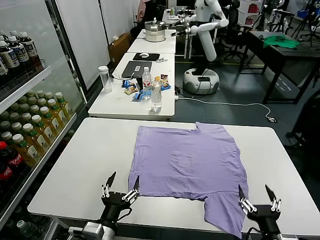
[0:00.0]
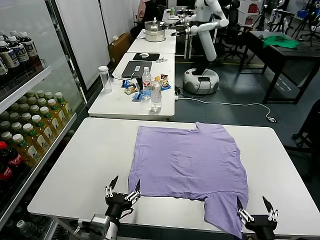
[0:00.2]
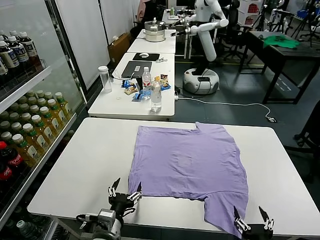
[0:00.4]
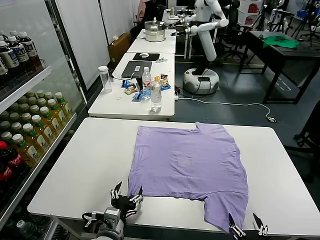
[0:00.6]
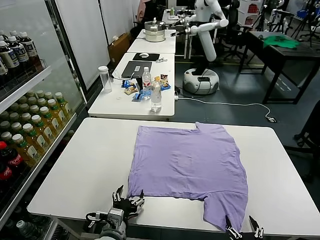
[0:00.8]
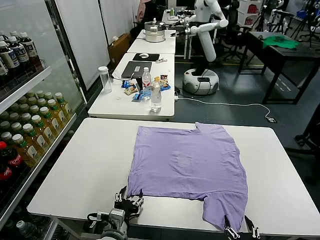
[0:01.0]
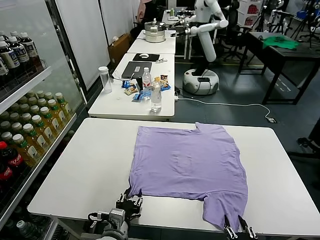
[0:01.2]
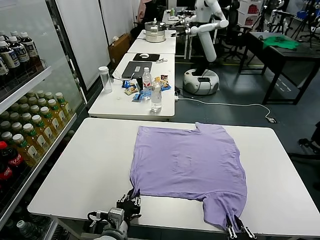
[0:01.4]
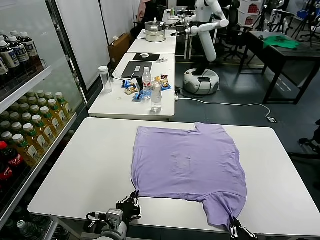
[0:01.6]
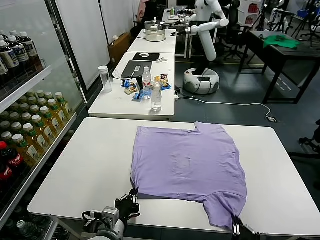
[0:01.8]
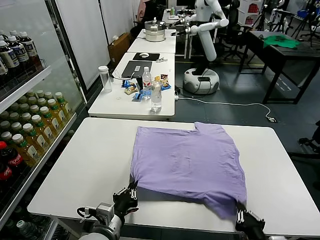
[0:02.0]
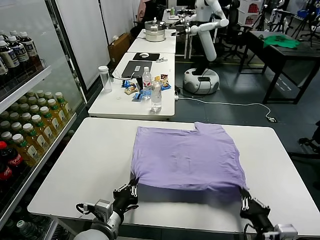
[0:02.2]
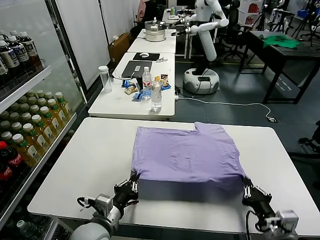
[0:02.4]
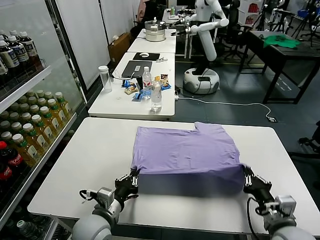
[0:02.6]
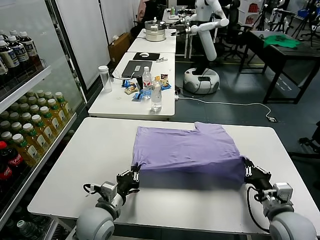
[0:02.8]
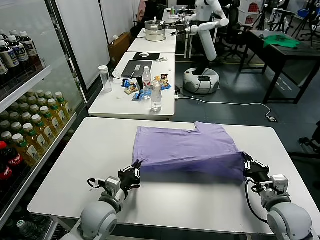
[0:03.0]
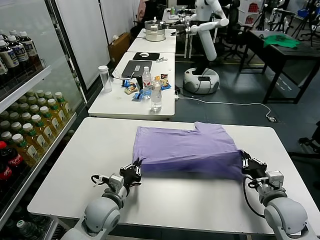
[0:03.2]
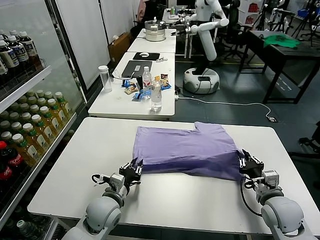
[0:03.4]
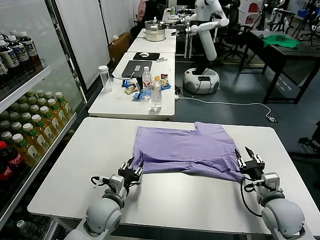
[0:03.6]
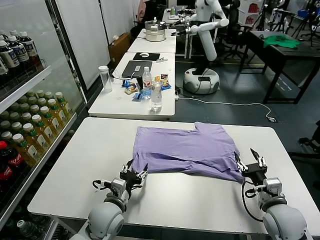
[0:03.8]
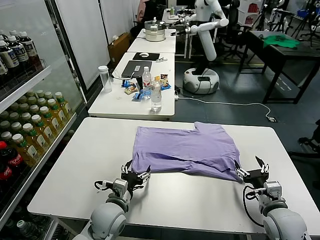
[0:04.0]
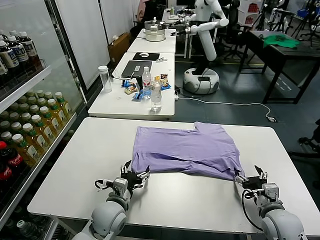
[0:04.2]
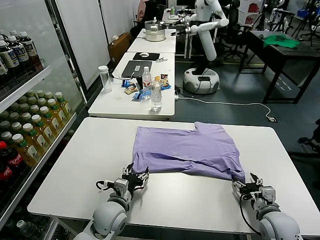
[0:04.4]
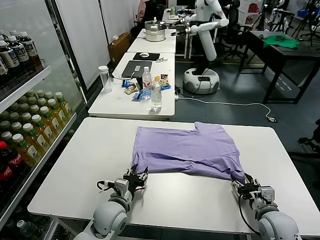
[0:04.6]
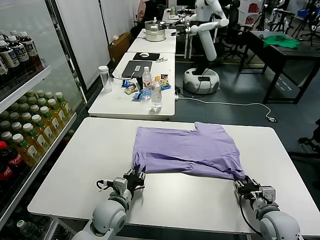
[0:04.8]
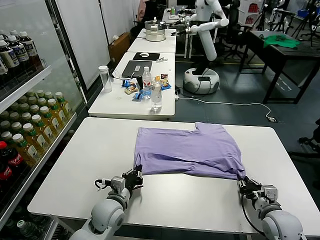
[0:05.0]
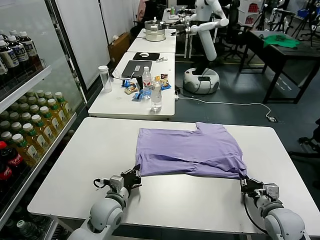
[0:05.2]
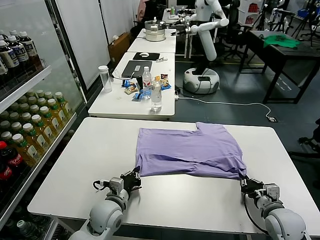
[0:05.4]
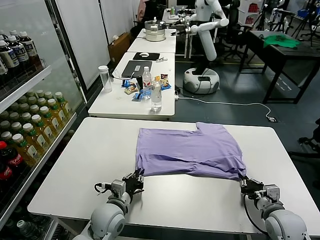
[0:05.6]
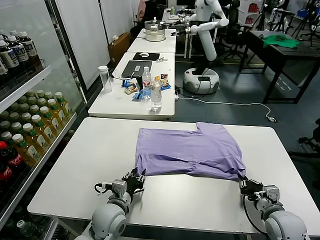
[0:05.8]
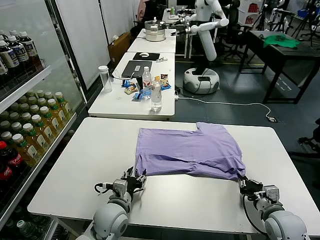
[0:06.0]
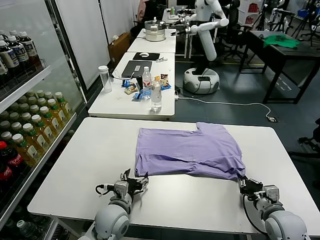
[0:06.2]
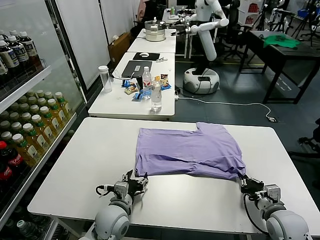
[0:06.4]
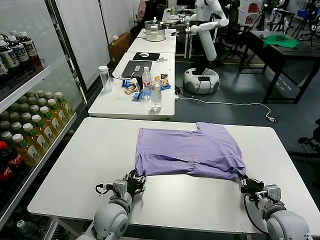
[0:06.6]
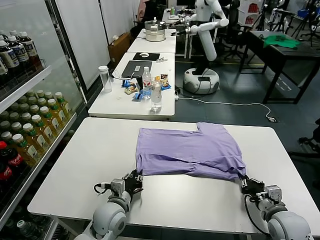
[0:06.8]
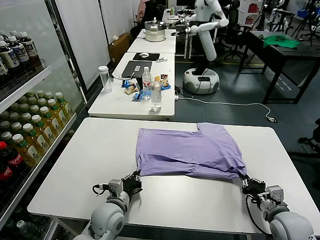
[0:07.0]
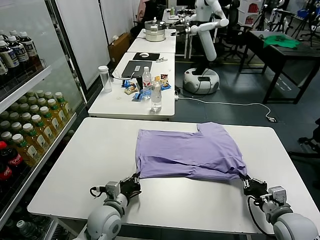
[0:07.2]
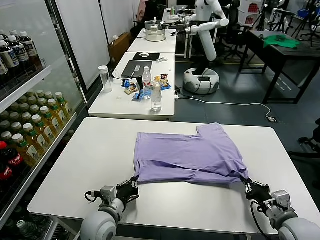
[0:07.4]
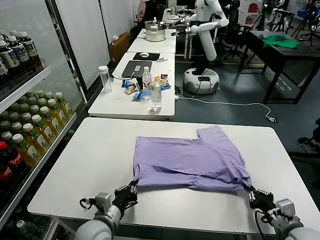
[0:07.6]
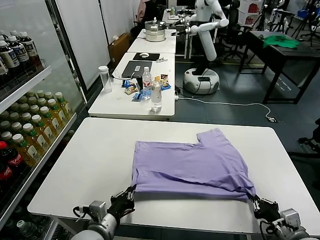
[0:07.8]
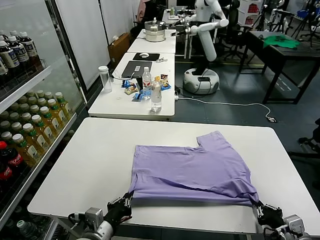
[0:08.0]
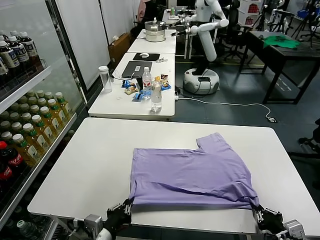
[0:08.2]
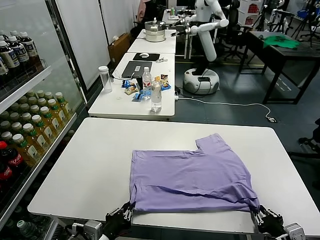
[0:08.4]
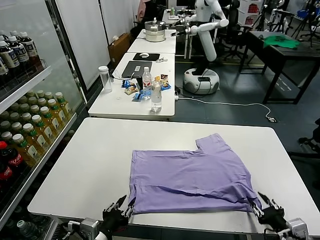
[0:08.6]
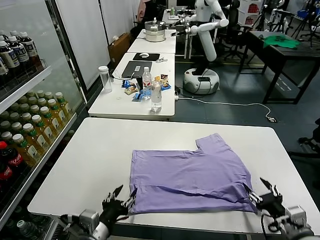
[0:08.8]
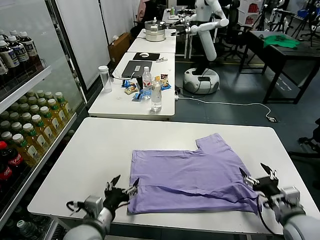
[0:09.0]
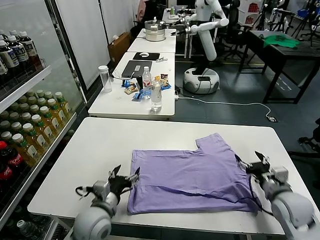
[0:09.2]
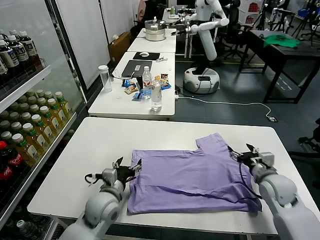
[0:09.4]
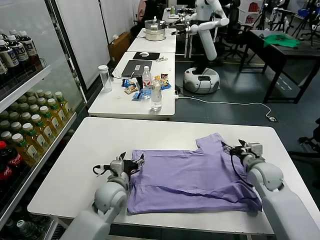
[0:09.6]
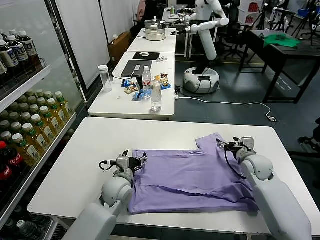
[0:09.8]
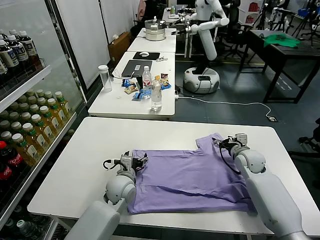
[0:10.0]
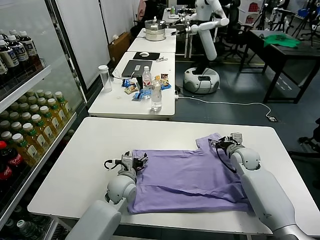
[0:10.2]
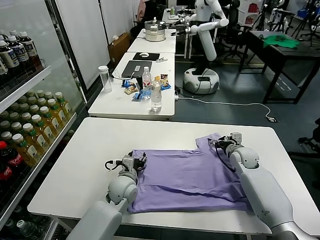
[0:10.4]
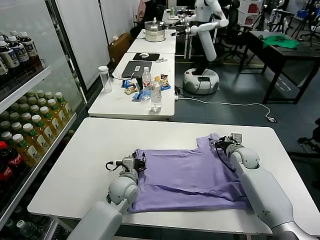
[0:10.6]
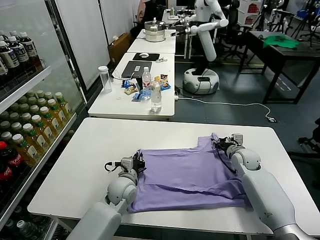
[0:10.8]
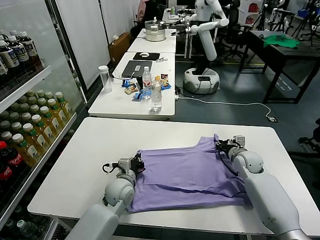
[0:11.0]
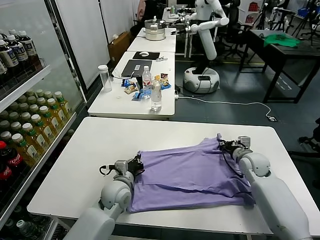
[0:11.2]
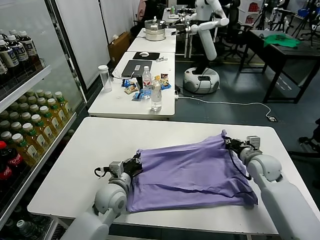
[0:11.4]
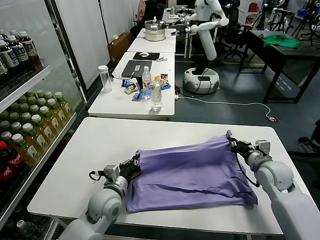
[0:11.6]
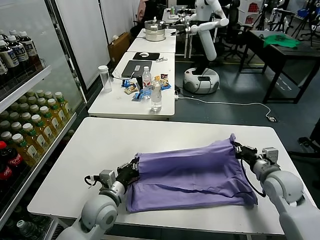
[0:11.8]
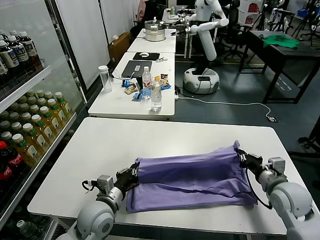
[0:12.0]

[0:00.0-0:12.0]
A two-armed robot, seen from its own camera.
Task of the whole recording: fold and organize the clothes.
Step, 0:00.0 to 0:01.8: use both grippers simultaneously to clamp the lower edge of the clothing fabric.
Step, 0:02.0 to 0:03.6: use both grippers to drag the lower edge of the fabric forward and fold it over the upper edge.
Step, 0:03.8 to 0:08.6: Drag the clothes downward with both gripper.
Step, 0:08.8 to 0:11.0: use both grippers simultaneously to clamp the upper edge of the clothing fabric.
0:01.6 to 0:03.0: The left gripper moves forward, approximately 10 cm, while the right gripper shifts approximately 20 cm forward and to the right.
0:03.0 to 0:04.4: The right gripper is displaced downward by some 5 cm, and opens, while the left gripper opens up.
0:04.4 to 0:06.0: The right gripper closes up. Meanwhile the left gripper closes and opens again.
0:06.0 to 0:07.6: The grippers both shift backward by some 5 cm. The left gripper closes its fingers.
0:07.6 to 0:09.0: The right gripper moves some 5 cm backward and comes back, and opens up; the left gripper moves approximately 10 cm backward and comes back, and opens up.
0:09.0 to 0:10.4: The right gripper travels forward by approximately 30 cm. The left gripper heads forward, covering some 20 cm.
0:10.4 to 0:12.0: The left gripper is displaced backward and upward by approximately 10 cm, and closes its fingers; the right gripper is displaced backward by about 20 cm, and closes its fingers.

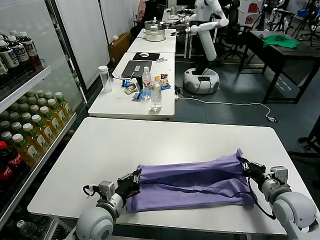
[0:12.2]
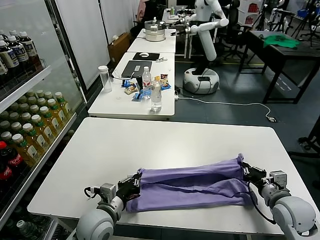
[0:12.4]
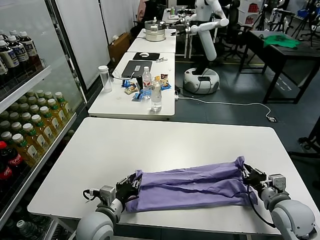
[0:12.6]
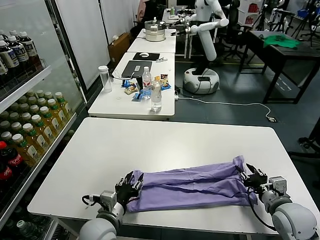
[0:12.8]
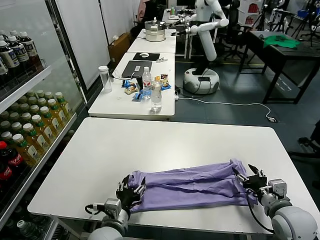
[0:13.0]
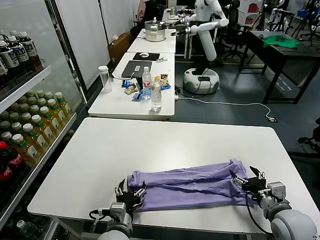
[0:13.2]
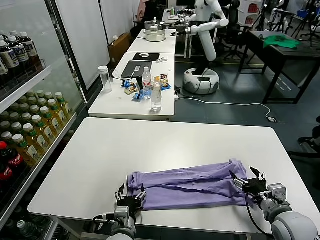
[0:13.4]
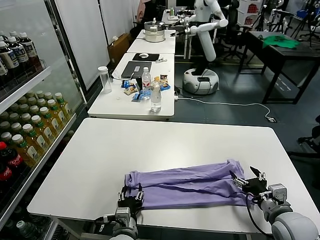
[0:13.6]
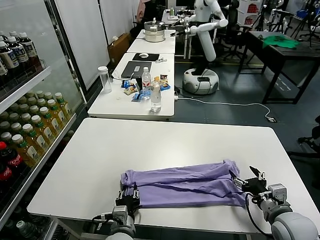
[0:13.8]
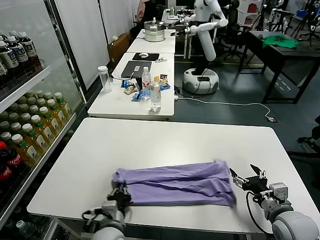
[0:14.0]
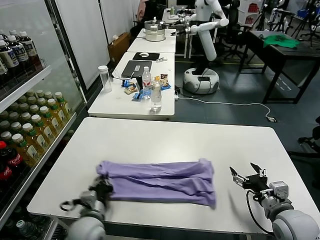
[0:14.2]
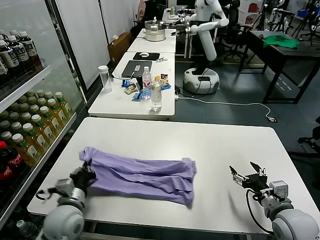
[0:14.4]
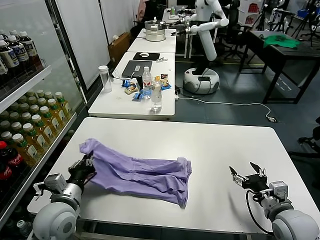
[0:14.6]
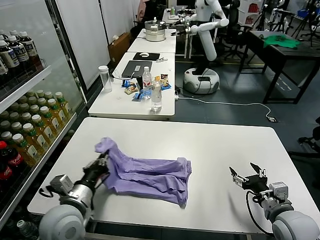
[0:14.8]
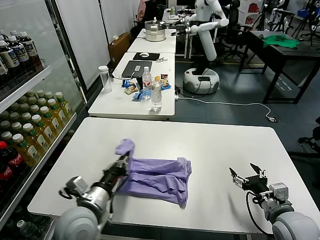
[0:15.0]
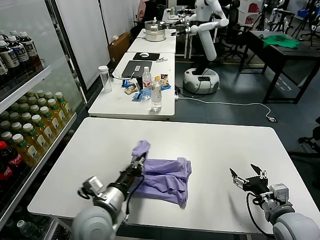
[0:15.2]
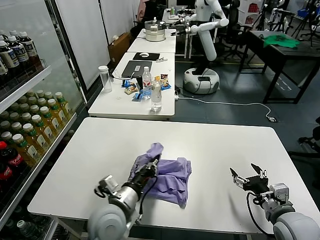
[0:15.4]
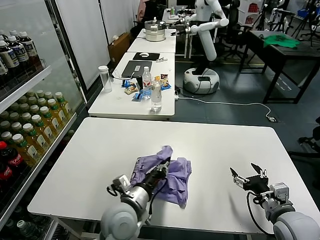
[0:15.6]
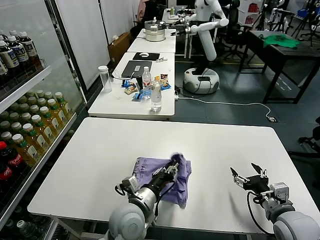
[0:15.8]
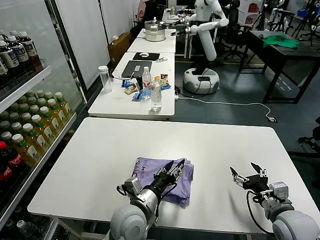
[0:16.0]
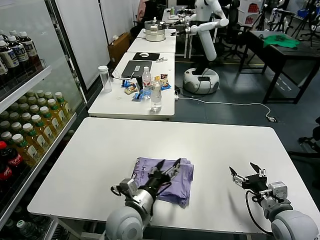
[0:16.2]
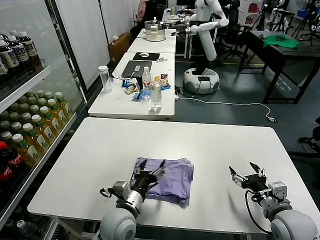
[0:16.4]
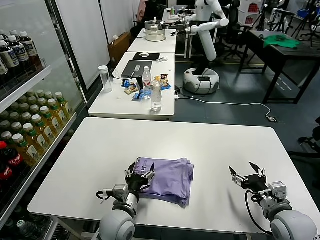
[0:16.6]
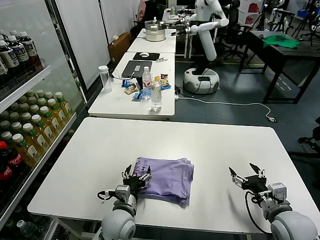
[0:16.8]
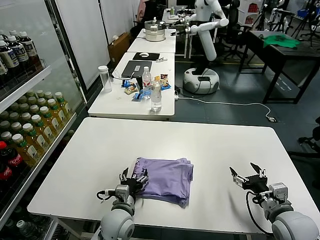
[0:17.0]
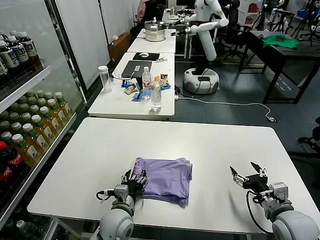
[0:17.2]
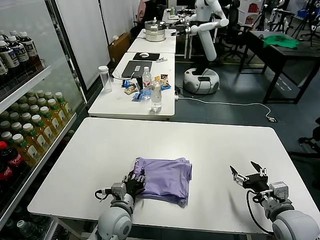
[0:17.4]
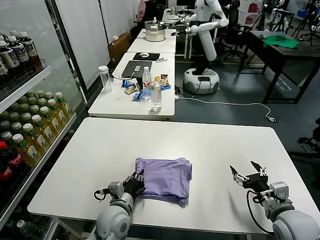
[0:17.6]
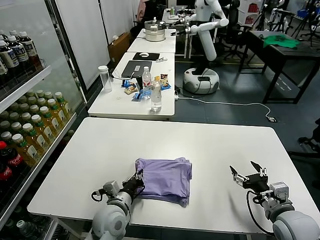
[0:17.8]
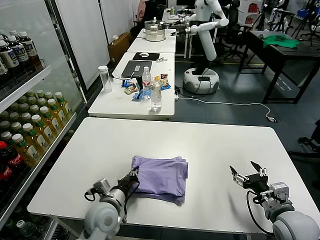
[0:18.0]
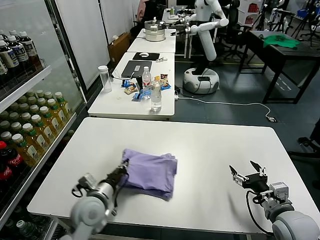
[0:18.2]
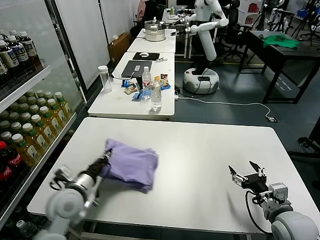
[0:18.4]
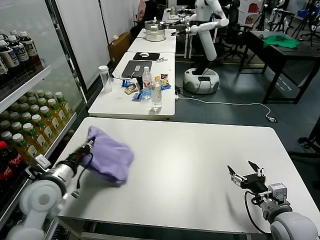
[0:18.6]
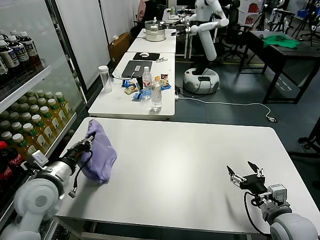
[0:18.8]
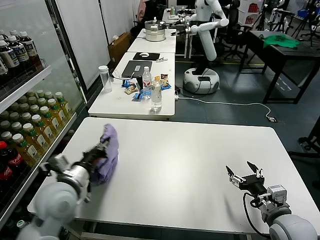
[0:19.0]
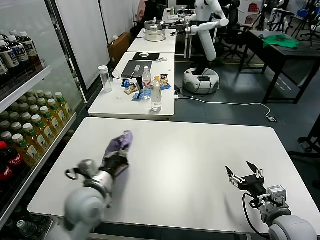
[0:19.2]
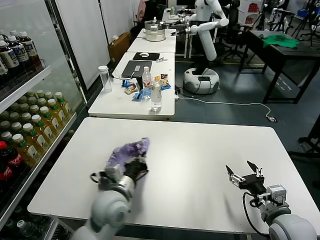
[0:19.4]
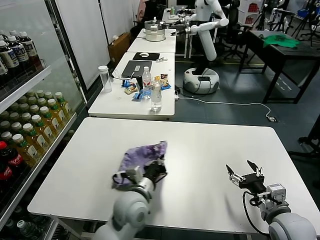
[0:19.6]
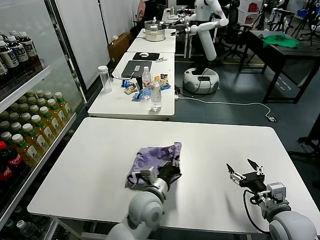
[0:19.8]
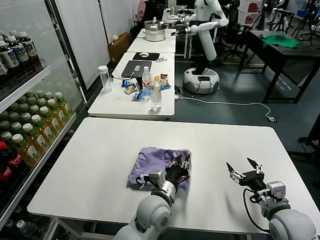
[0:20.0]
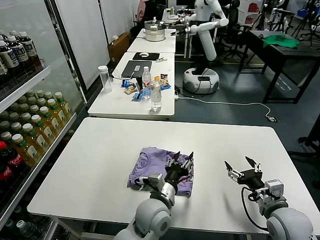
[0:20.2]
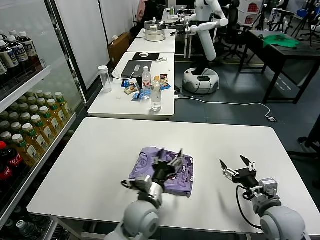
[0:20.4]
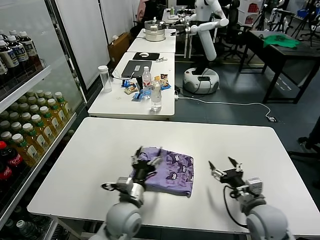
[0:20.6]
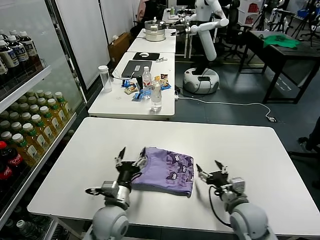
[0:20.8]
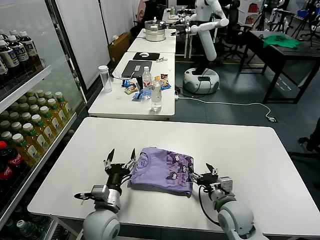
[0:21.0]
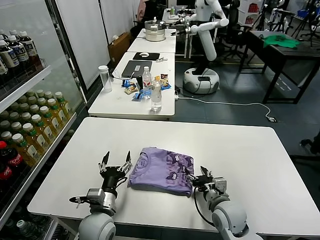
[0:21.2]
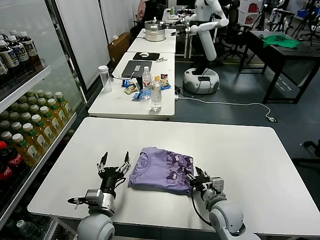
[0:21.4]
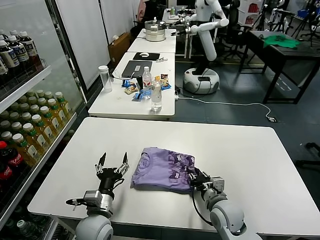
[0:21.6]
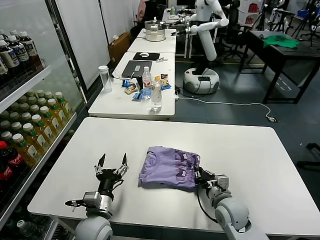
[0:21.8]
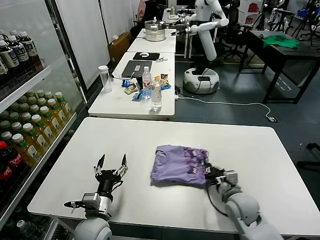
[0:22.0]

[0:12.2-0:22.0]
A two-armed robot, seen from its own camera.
Task of the whole recording: fold and organize the clothes.
Step, 0:13.0 to 0:13.8: use the left gripper to clamp the left edge of the fabric.
Step, 0:14.2 to 0:16.0: use the left gripper to drag the left edge of the fabric to the left and folds it over the right edge.
Step, 0:16.4 to 0:20.2: Flip the folded clothes over with left gripper.
0:12.2 to 0:13.6: The left gripper shifts some 10 cm to the right, downward and backward, and opens. The right gripper goes approximately 5 cm backward, and opens its fingers.
0:13.6 to 0:15.0: The left gripper goes approximately 15 cm upward and to the left, and closes up.
0:15.0 to 0:16.4: The left gripper goes about 10 cm to the right and downward, and opens.
0:16.4 to 0:17.8: The left gripper moves about 5 cm, and closes its fingers.
0:17.8 to 0:19.2: The left gripper shifts some 15 cm upward and to the left.
0:19.2 to 0:20.6: The left gripper travels to the right and downward by some 15 cm, and opens. The right gripper changes place by roughly 5 cm.
0:20.6 to 0:22.0: The right gripper shifts some 10 cm forward, downward and to the left, and closes. Meanwhile the left gripper travels to the left by approximately 10 cm.
